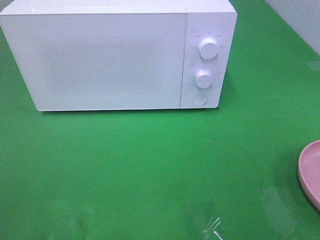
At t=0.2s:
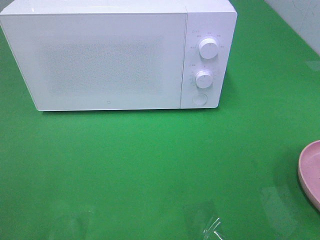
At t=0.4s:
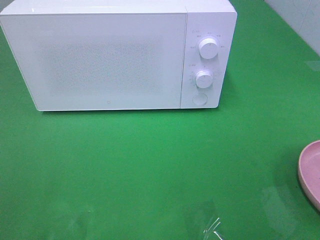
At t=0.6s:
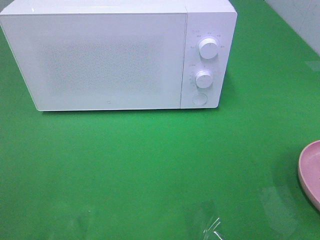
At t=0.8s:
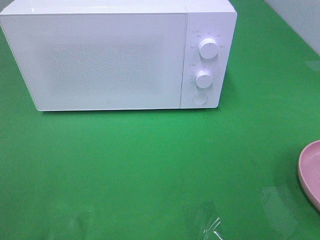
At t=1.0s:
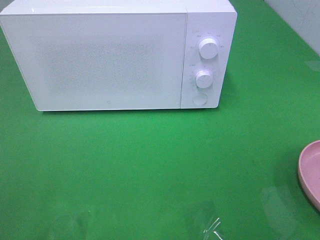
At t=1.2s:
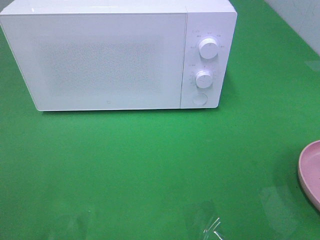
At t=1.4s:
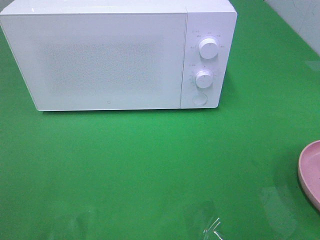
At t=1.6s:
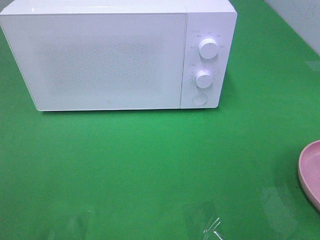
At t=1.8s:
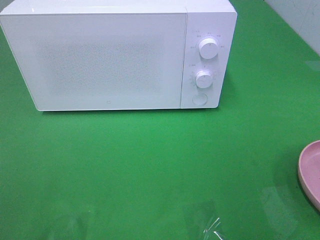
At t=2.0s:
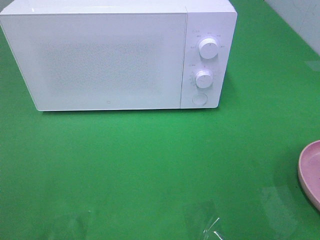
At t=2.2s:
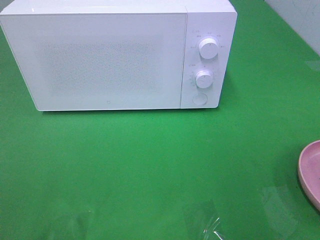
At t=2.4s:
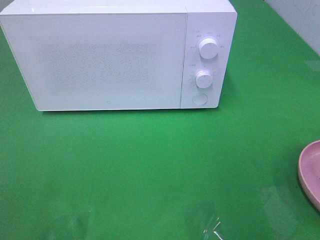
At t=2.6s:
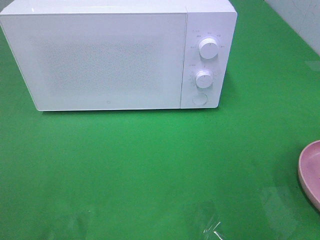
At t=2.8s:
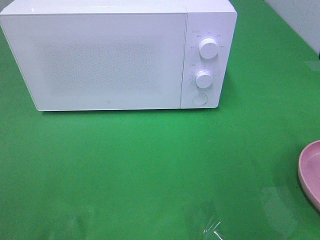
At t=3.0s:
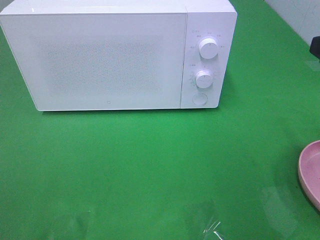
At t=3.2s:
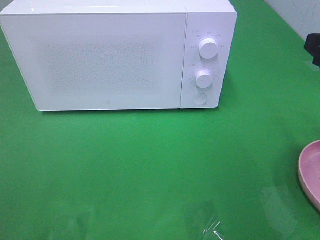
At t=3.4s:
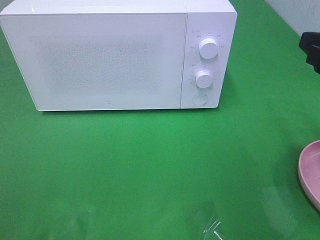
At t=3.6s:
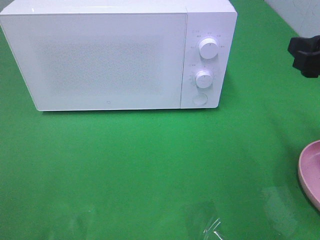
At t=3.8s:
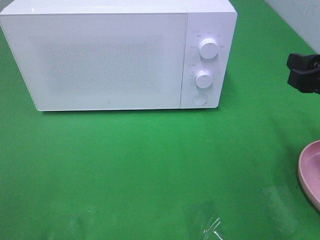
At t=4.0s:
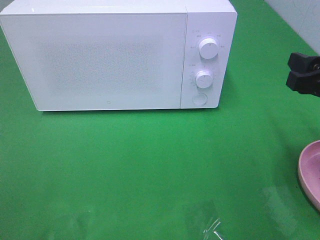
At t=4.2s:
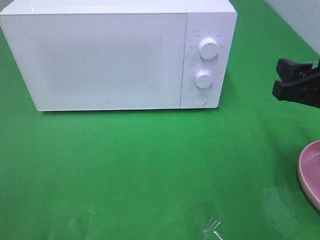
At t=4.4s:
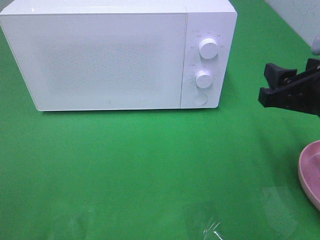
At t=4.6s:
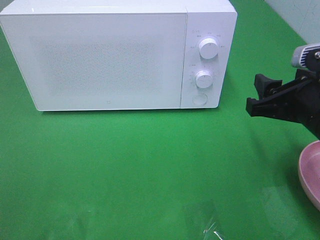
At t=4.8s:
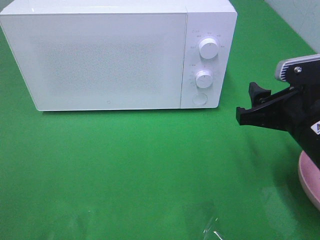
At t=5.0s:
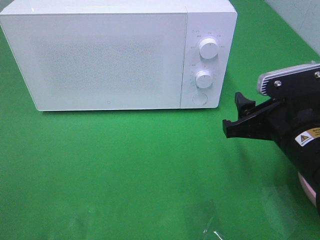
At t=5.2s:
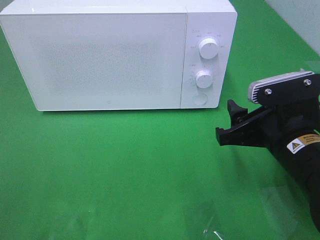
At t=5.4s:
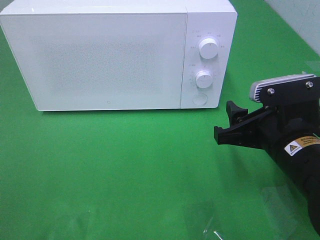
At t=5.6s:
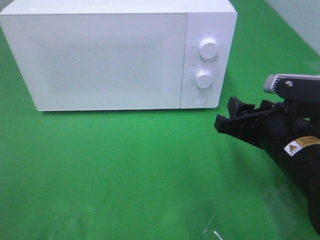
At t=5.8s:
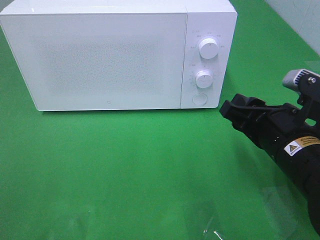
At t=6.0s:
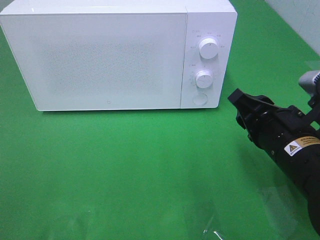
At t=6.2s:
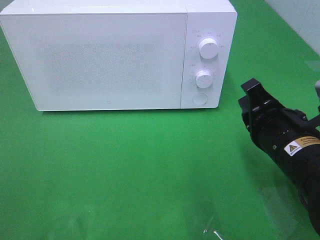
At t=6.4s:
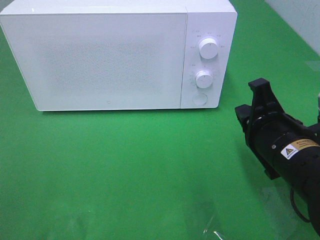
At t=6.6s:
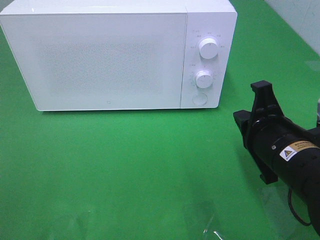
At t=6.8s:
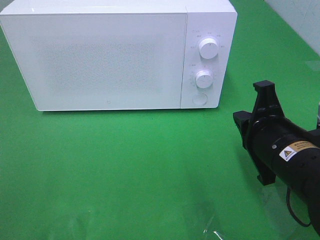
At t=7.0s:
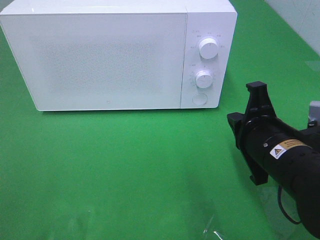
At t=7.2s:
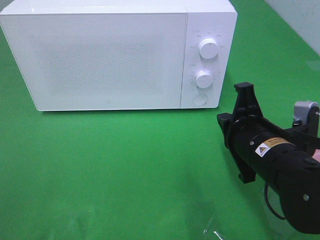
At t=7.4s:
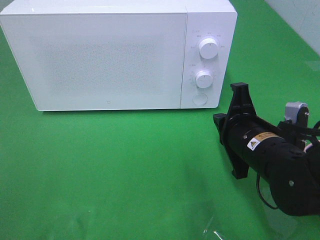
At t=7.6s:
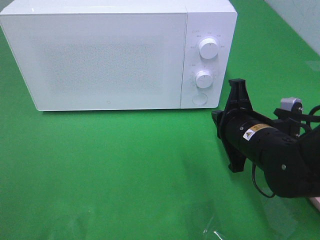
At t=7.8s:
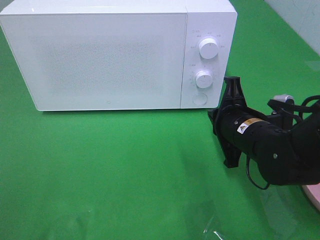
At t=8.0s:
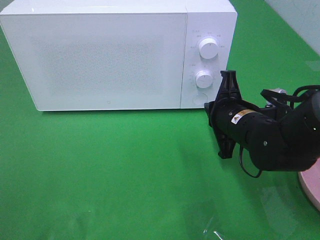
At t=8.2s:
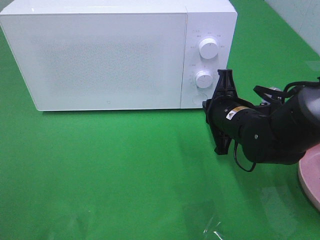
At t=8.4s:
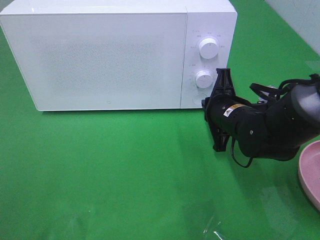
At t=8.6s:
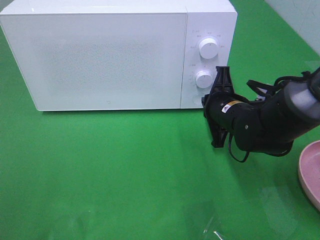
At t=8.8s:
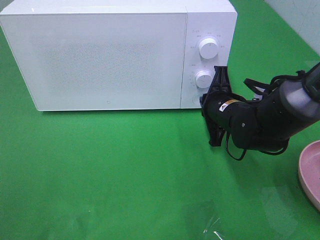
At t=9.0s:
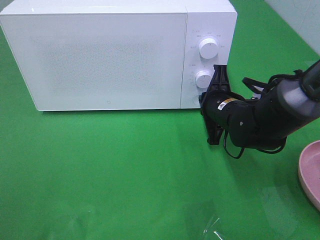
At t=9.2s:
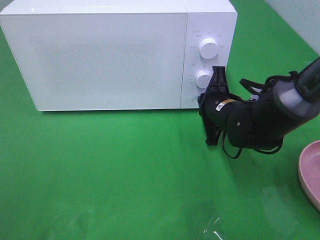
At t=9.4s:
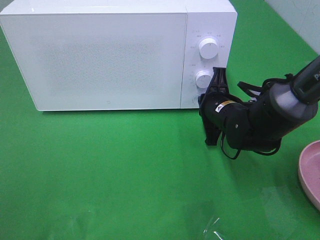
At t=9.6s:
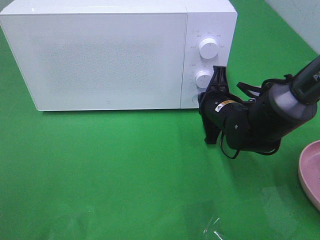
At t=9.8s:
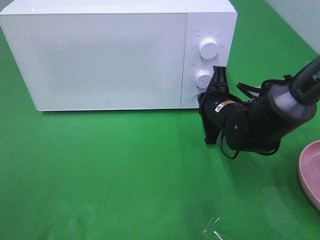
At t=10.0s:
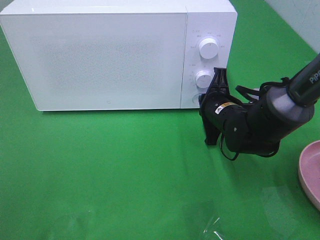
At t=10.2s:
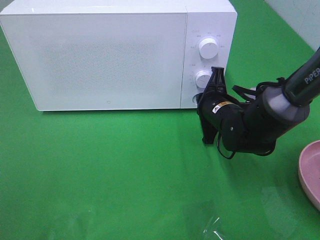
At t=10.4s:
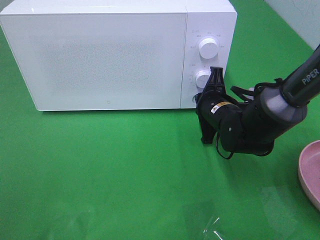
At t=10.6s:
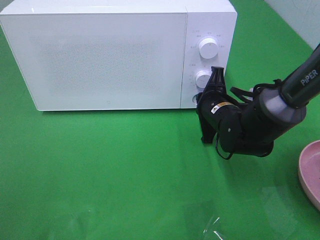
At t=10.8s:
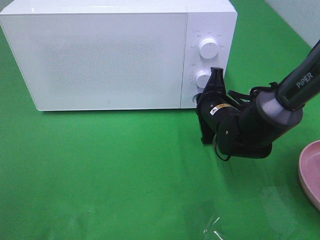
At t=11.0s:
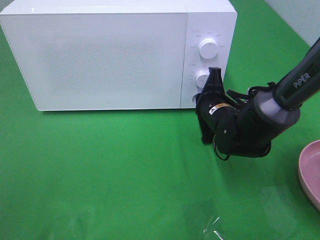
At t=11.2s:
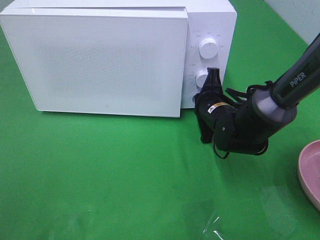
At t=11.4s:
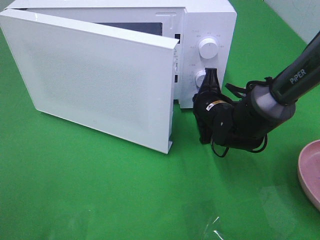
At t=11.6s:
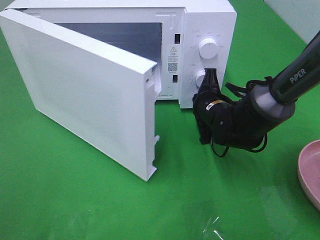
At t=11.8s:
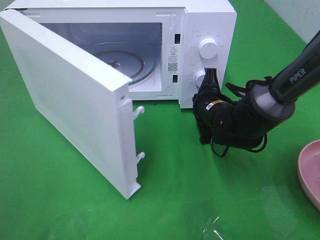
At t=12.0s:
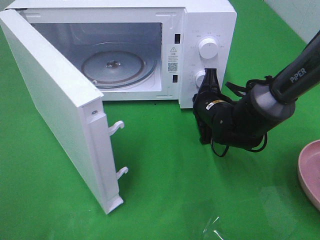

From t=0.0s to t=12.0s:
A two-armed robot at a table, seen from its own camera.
Task of the whole recording: Heat the burger.
From t=3.0s to t=4.4s: The right gripper shifts about 5 cm downward.
From t=4.4s to t=6.0s: The right gripper travels downward and to the left by approximately 10 cm.
From t=6.0s to t=7.6s: The right gripper travels forward by roughly 5 cm, and closes up.
From t=7.6s to t=9.0s: The right gripper shifts approximately 10 cm forward.
From t=9.0s to t=10.4s: The grippers move only a little.

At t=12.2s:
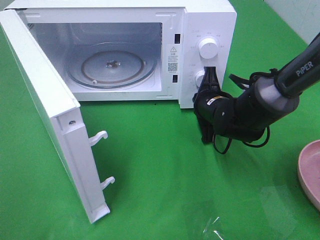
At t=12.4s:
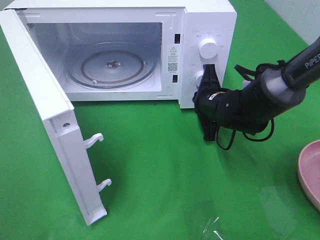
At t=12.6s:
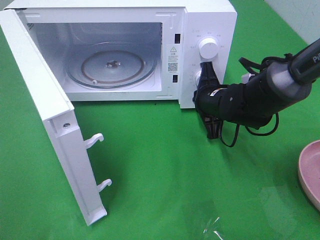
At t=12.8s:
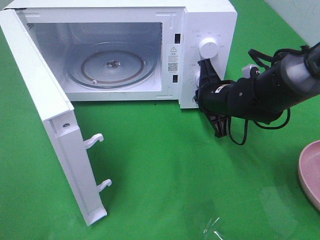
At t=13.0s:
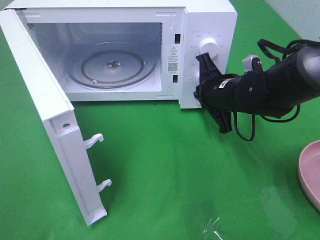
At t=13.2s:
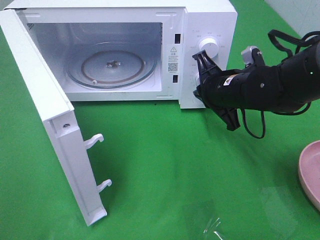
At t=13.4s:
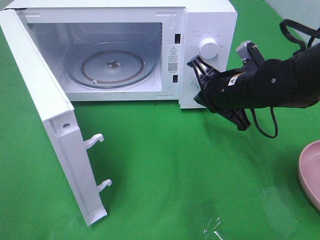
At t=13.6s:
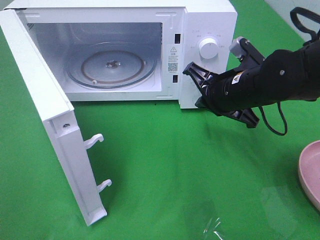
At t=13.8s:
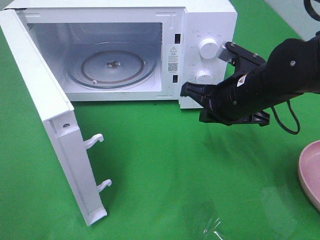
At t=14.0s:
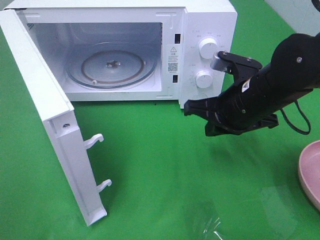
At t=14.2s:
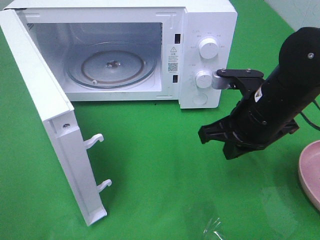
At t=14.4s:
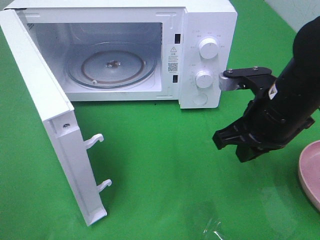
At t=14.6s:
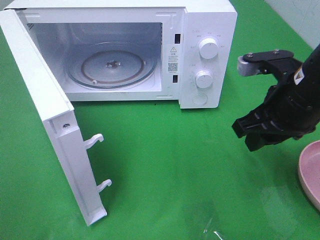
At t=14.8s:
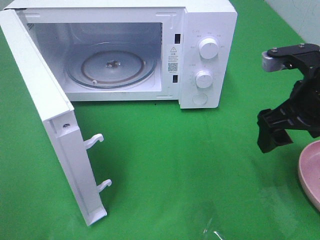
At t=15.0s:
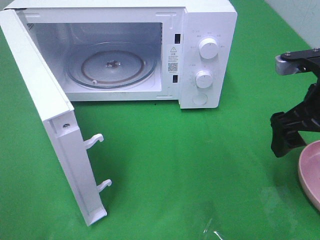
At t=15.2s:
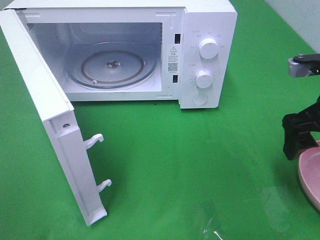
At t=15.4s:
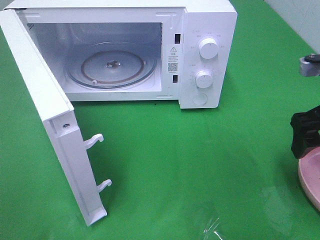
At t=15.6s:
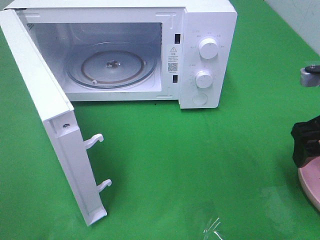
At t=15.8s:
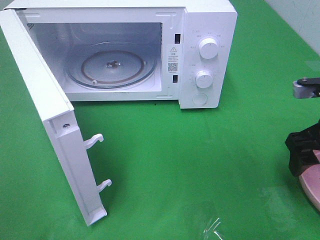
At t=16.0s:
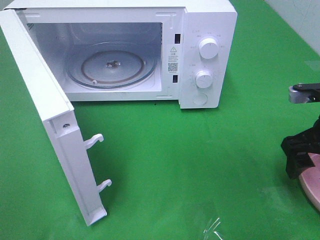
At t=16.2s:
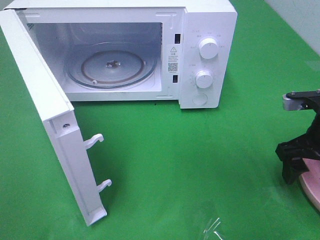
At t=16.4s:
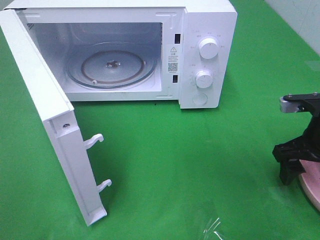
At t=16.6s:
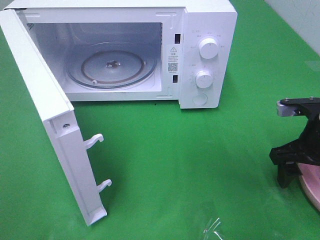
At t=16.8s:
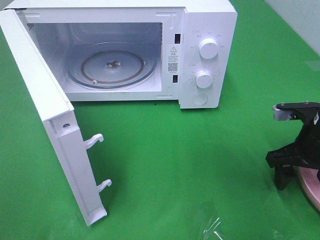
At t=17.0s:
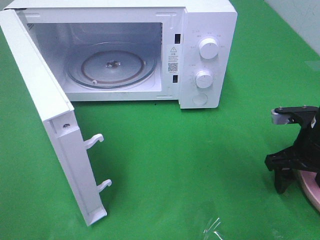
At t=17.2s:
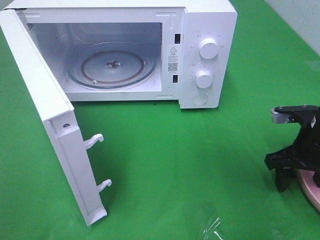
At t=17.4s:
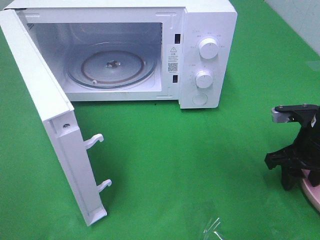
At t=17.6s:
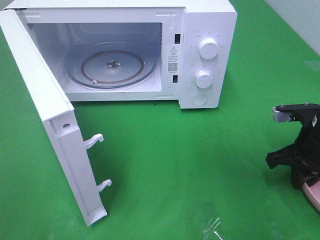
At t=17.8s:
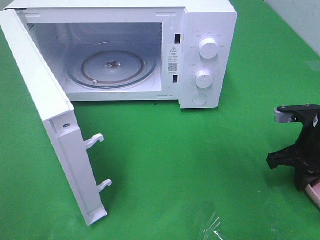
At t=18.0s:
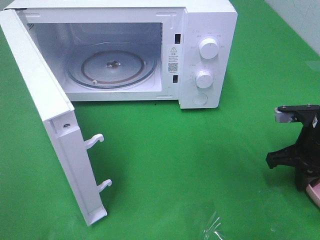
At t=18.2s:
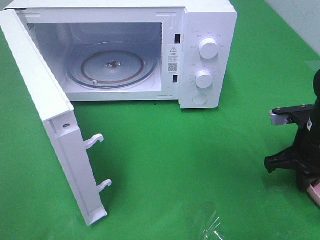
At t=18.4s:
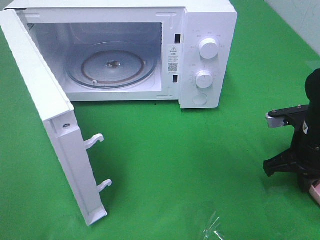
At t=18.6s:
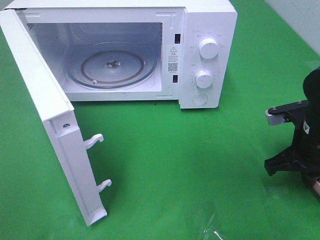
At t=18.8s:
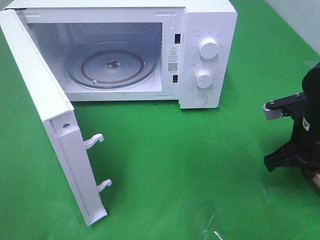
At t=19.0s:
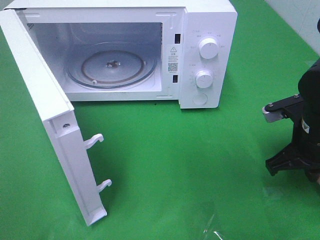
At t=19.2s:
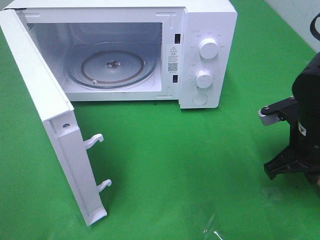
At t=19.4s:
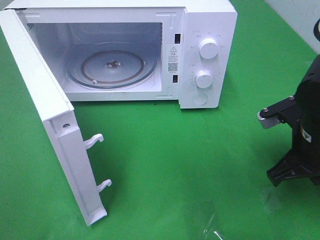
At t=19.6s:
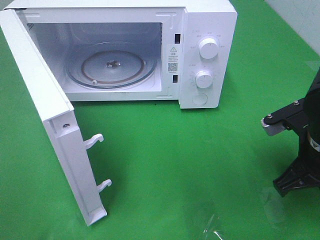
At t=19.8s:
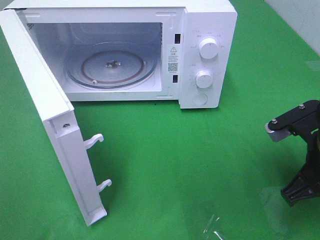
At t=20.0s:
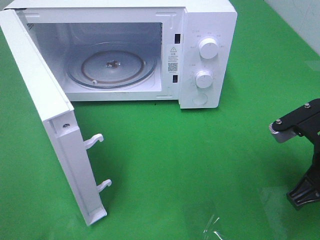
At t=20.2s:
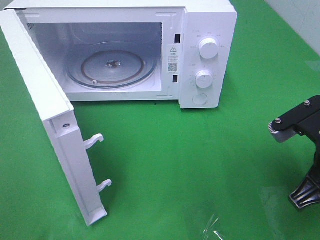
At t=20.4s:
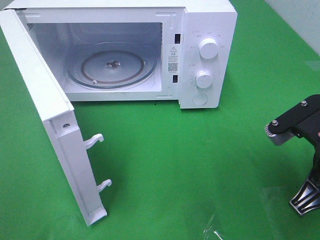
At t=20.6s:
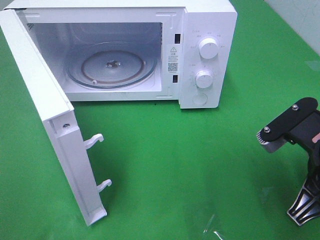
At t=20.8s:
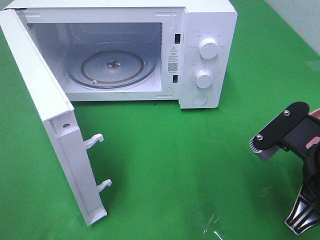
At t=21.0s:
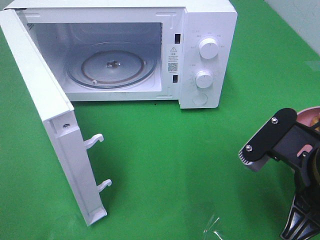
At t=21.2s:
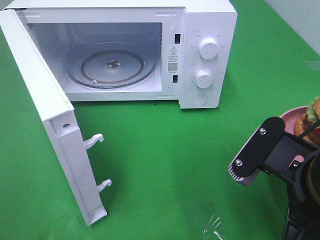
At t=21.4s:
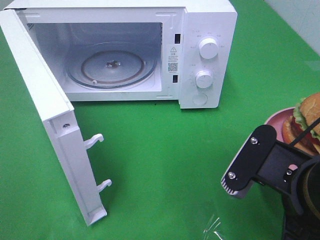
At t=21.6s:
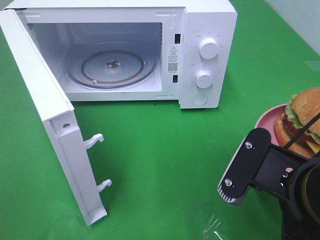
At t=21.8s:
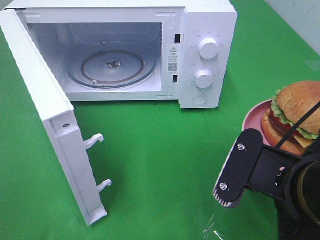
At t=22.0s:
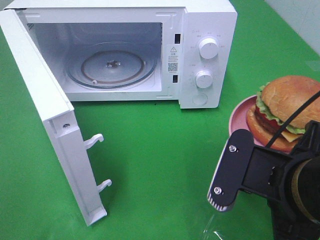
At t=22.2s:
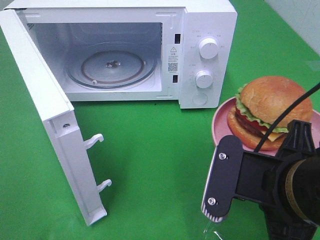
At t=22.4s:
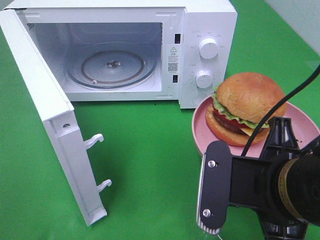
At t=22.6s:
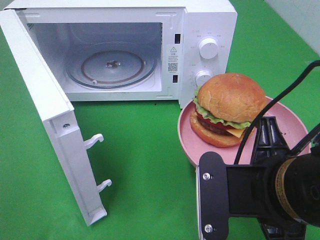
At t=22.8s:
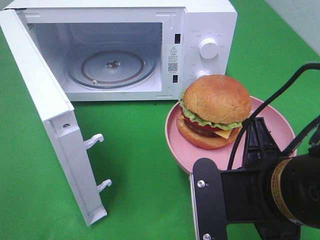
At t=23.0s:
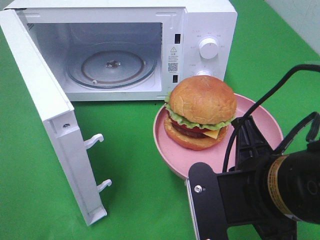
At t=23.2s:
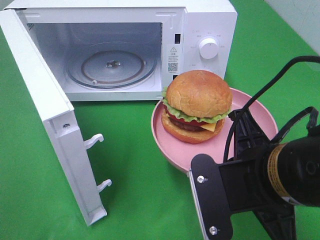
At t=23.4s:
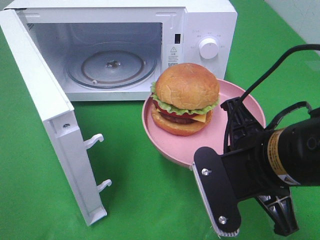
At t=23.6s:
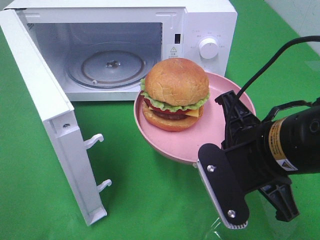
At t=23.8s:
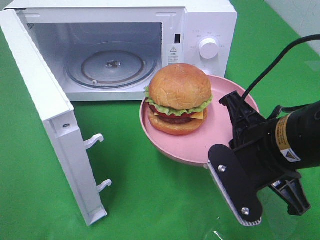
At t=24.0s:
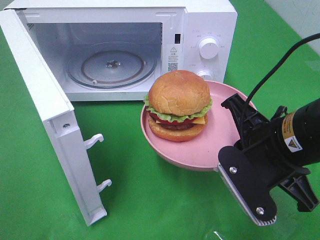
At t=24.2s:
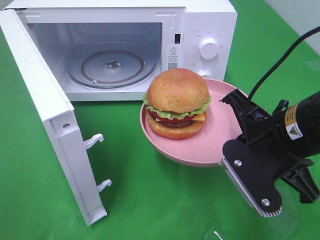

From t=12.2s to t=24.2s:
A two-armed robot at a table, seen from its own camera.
Task of the whole recording: Heat the burger.
Step, from t=13.4s to t=18.2s: Right hand: grab the plate with the hamburger.
From t=12.2s to t=13.8s: The right gripper goes roughly 10 cm upward and backward.
From t=13.8s to t=15.2s: The right gripper is displaced to the right and upward by roughly 15 cm, and opens.
From t=15.2s to t=16.6s: The right gripper travels downward by about 10 cm.
From t=16.6s to t=18.2s: The right gripper closes up.
From t=18.2s to t=19.8s: The right gripper shifts about 10 cm backward and upward.
From t=19.8s to t=21.2s: The right gripper is displaced backward and to the left by some 10 cm.
From t=22.6s to t=24.2s: The right gripper heads forward, covering approximately 10 cm.
